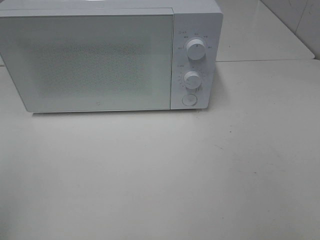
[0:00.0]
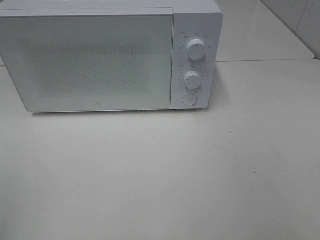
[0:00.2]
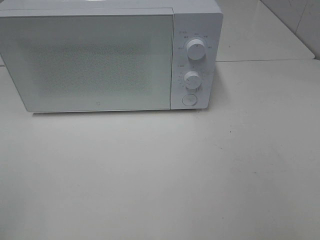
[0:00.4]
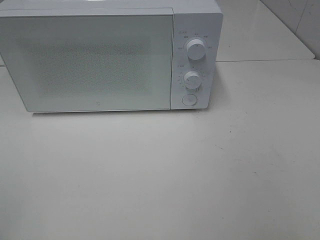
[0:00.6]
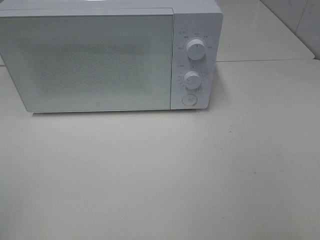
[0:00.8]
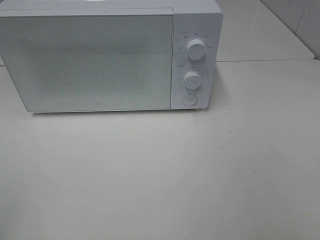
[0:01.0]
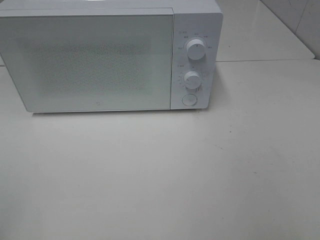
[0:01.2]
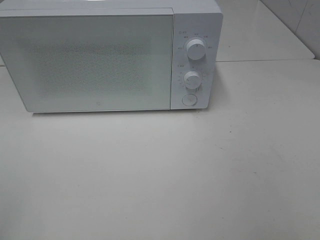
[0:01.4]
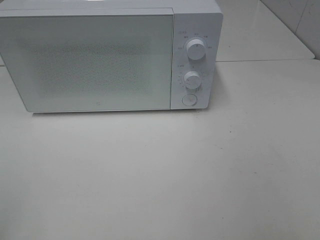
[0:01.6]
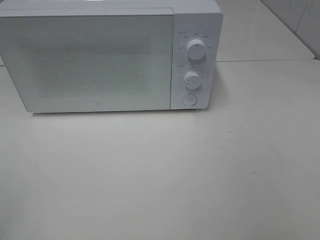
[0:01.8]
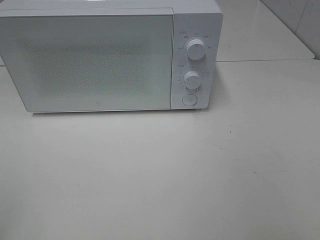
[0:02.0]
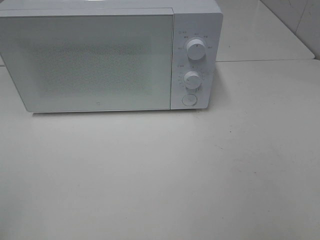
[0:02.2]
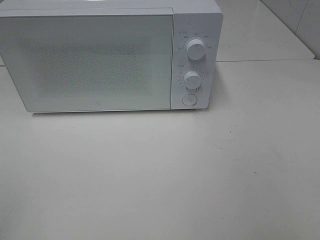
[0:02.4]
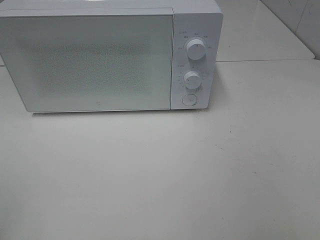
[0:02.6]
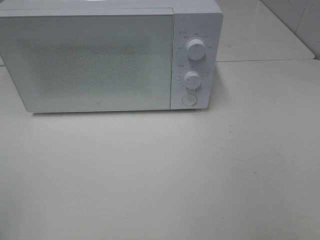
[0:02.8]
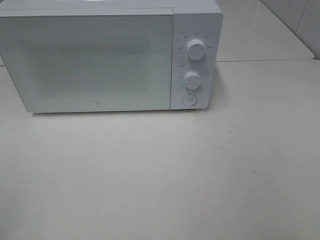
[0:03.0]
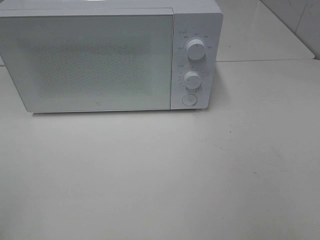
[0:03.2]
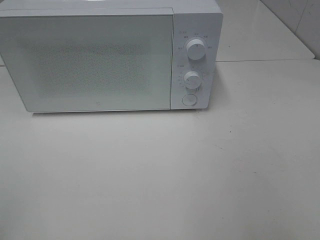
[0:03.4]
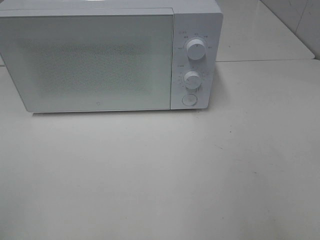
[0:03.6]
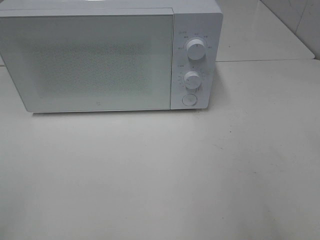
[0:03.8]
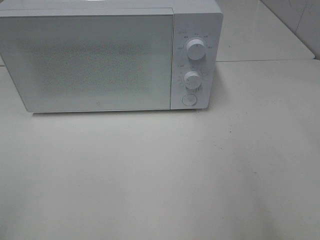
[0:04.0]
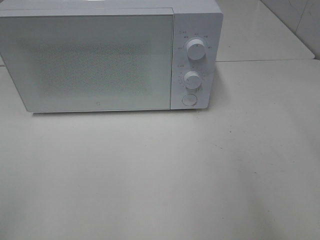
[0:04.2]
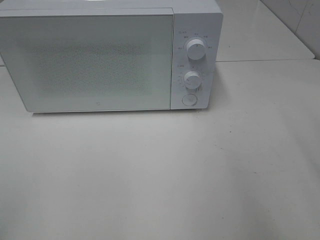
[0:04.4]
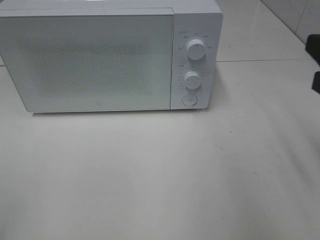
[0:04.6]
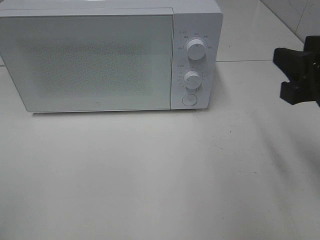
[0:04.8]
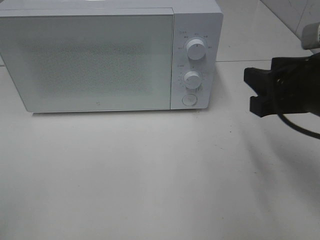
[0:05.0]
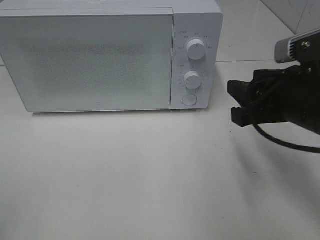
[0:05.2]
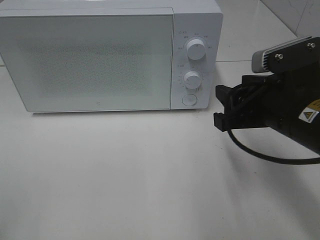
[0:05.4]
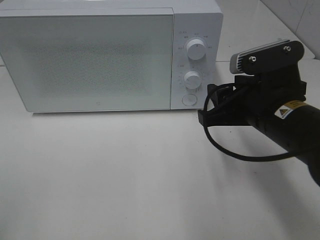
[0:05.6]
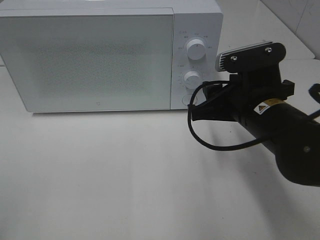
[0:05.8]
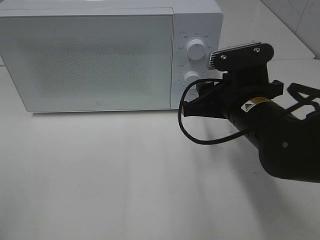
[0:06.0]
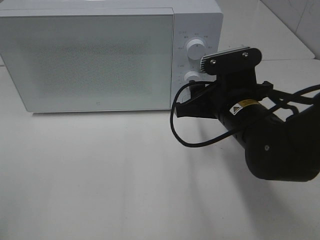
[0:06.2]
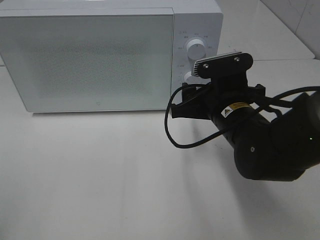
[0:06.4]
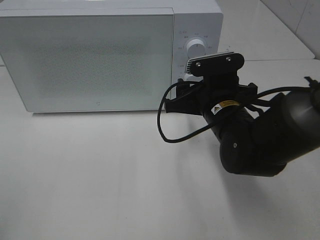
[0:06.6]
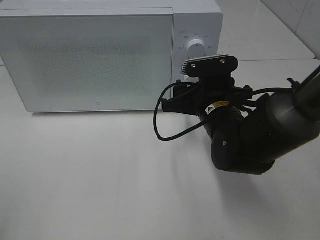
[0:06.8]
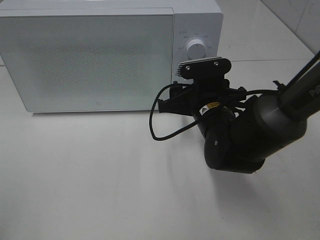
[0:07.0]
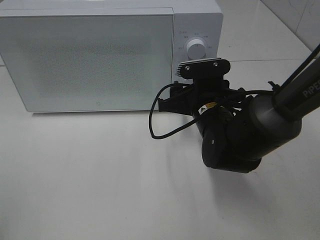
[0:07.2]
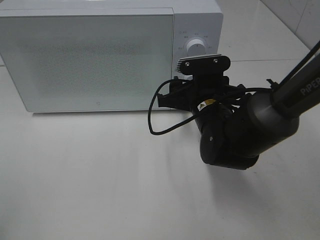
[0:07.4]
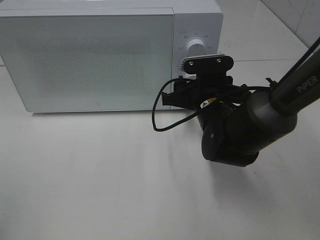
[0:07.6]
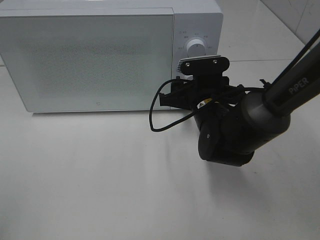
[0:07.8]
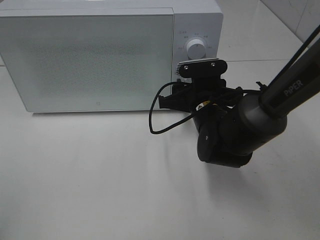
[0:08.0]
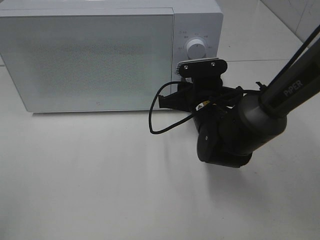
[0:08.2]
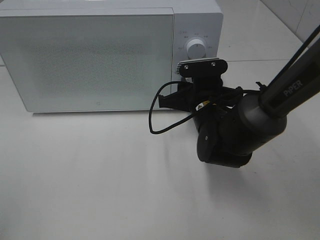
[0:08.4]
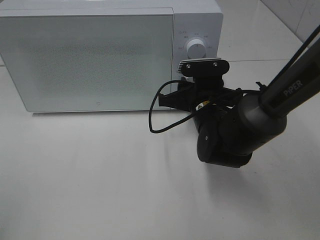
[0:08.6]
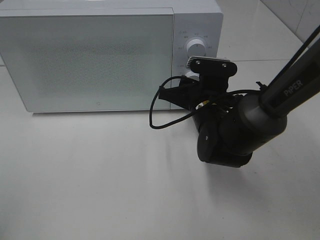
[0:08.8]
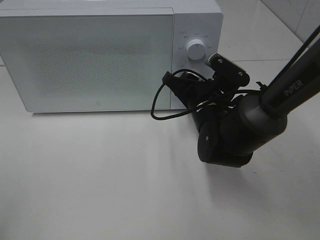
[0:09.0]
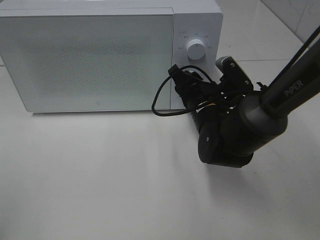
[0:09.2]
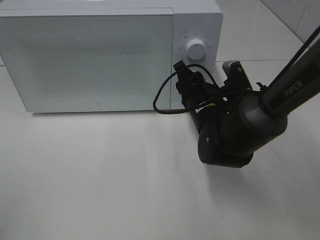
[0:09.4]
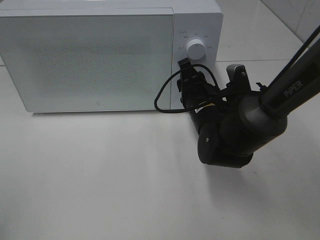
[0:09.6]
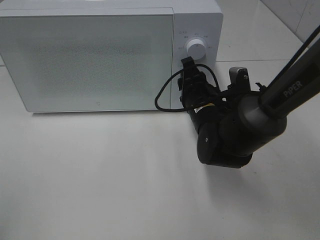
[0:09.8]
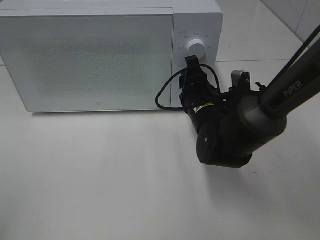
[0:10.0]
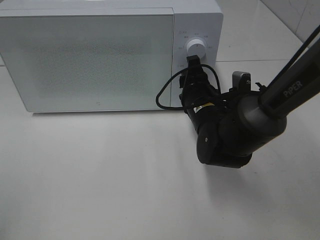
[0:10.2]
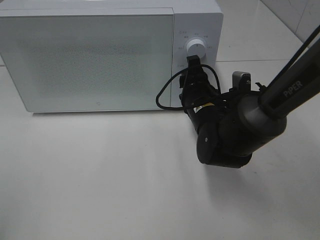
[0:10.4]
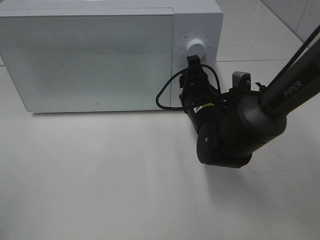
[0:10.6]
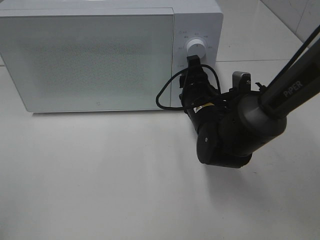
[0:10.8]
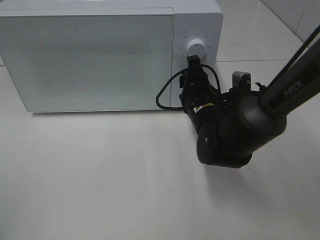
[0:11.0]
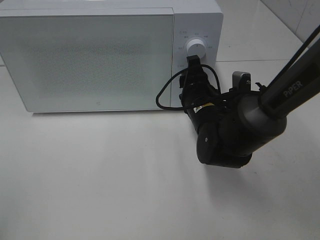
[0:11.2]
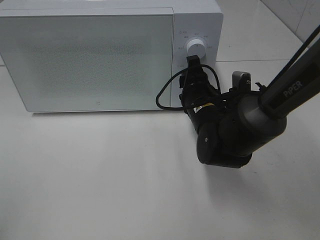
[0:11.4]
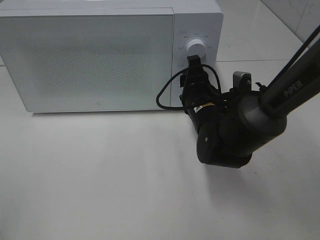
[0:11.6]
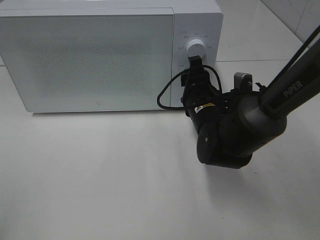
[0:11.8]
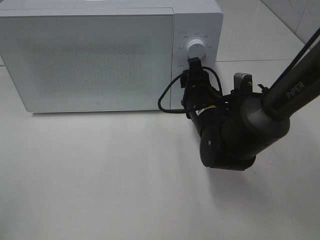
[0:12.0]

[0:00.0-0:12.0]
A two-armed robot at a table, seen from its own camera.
Task of the whole recording: Heat Sandwich.
0:01.6 to 0:03.0: Neither gripper changes place.
0:04.4 to 0:06.0: The right gripper goes approximately 20 cm to the left, downward and forward.
0:06.0 to 0:07.6: The right gripper shifts some 10 cm forward and downward.
0:07.6 to 0:09.0: The right gripper closes its fingers.
0:10.4 to 0:12.0: Both grippers stay put.

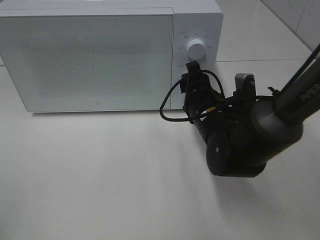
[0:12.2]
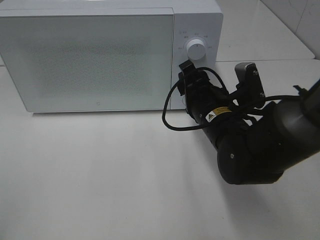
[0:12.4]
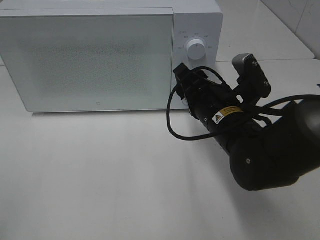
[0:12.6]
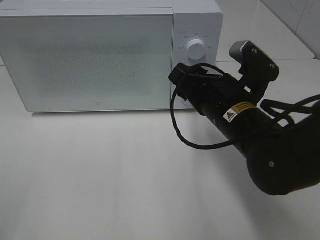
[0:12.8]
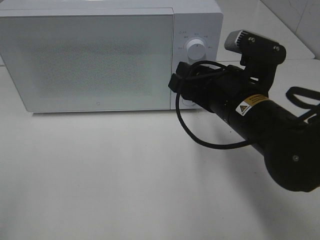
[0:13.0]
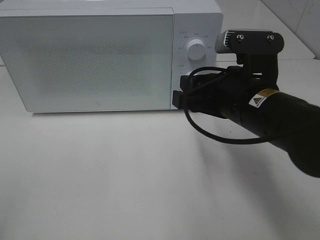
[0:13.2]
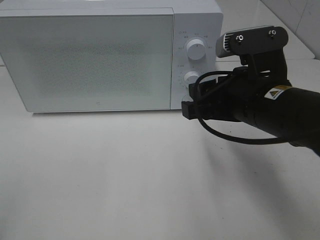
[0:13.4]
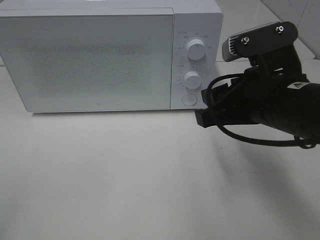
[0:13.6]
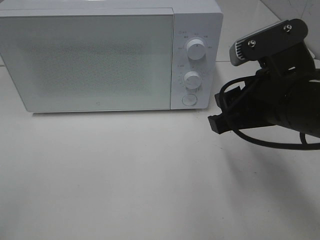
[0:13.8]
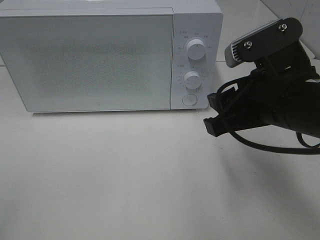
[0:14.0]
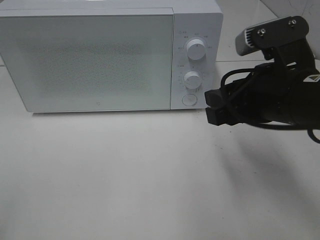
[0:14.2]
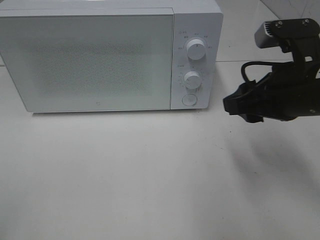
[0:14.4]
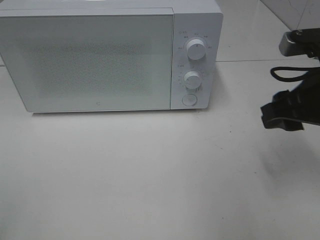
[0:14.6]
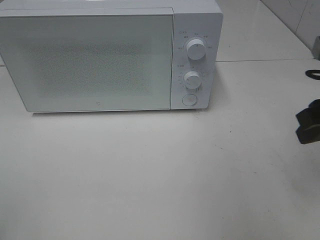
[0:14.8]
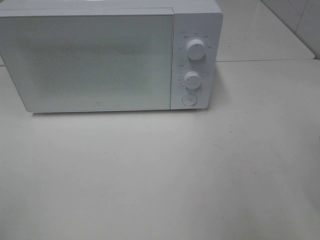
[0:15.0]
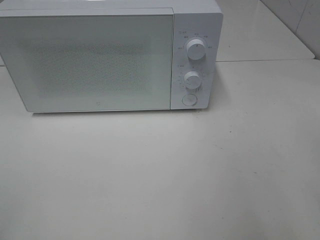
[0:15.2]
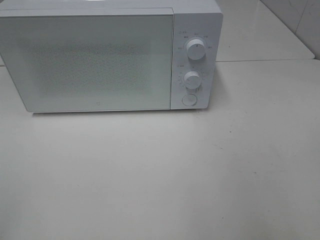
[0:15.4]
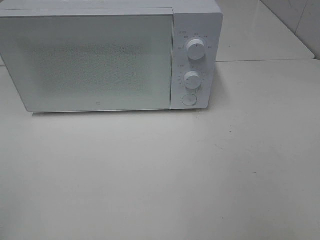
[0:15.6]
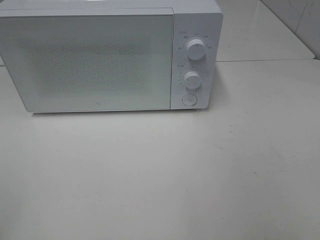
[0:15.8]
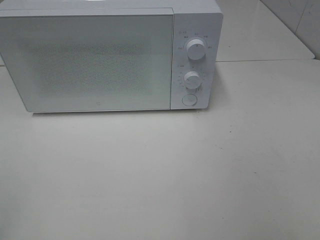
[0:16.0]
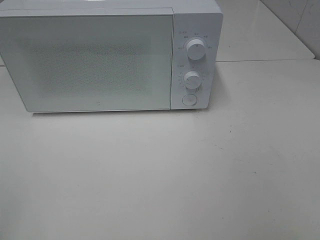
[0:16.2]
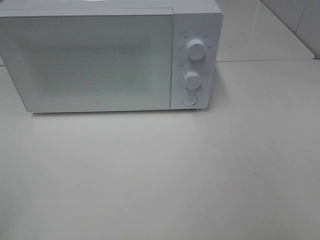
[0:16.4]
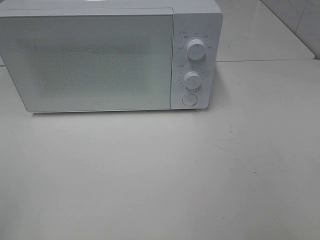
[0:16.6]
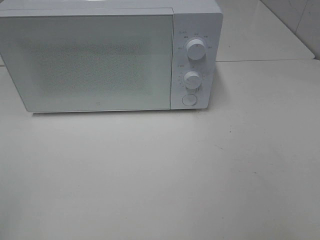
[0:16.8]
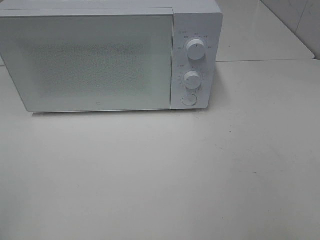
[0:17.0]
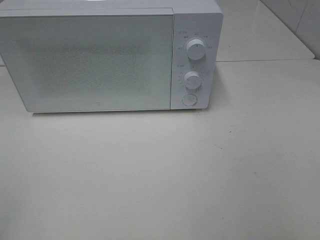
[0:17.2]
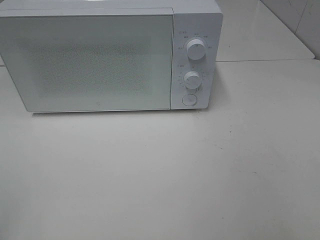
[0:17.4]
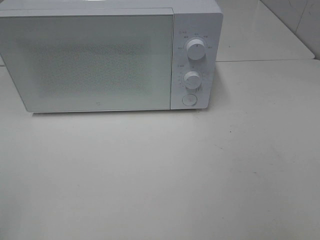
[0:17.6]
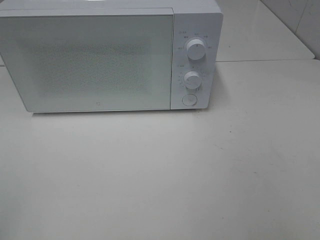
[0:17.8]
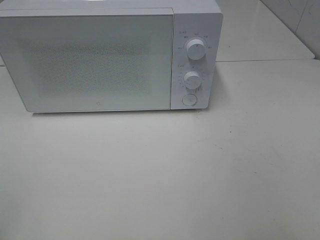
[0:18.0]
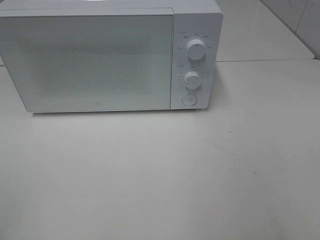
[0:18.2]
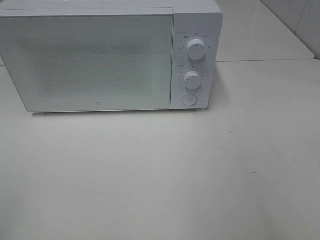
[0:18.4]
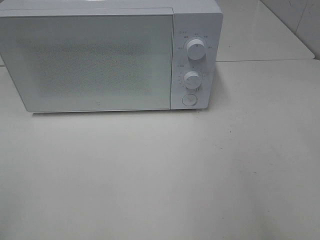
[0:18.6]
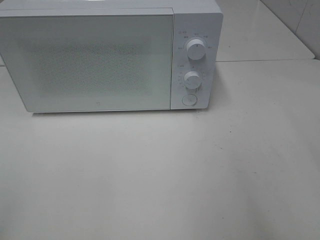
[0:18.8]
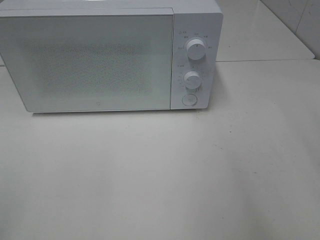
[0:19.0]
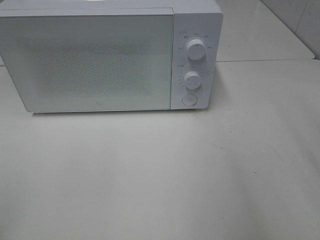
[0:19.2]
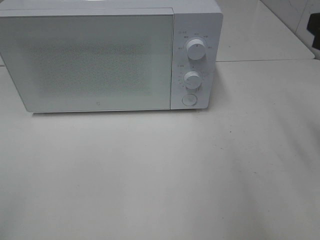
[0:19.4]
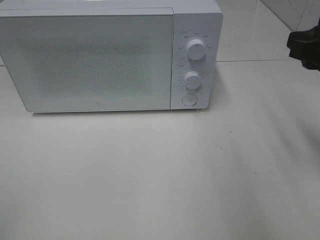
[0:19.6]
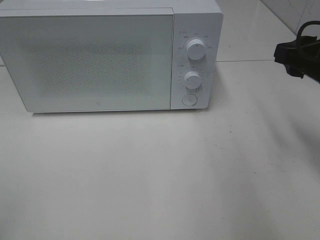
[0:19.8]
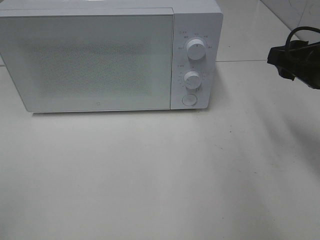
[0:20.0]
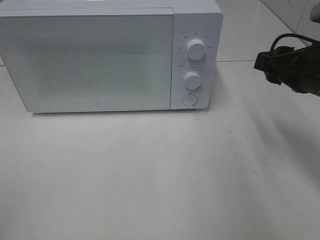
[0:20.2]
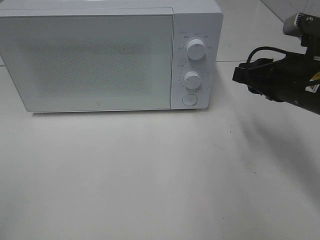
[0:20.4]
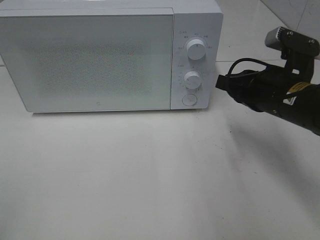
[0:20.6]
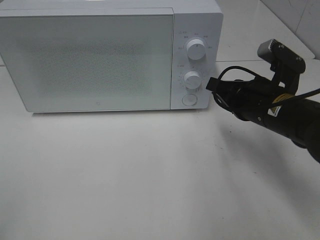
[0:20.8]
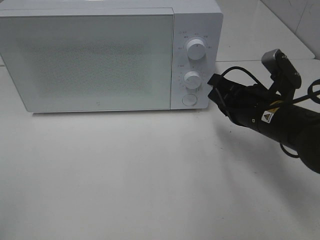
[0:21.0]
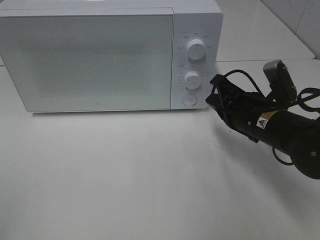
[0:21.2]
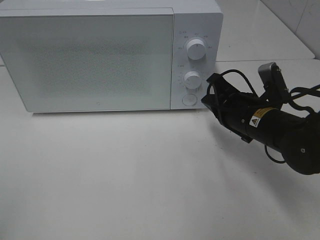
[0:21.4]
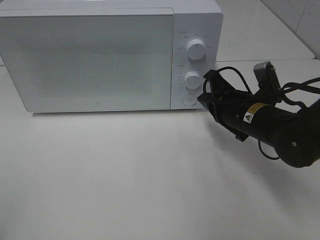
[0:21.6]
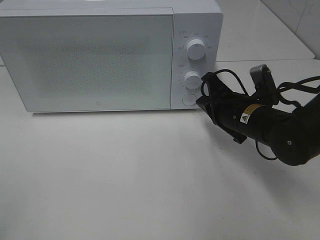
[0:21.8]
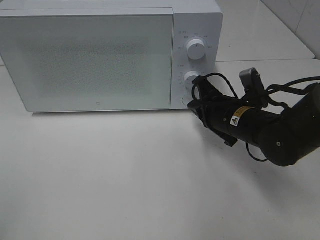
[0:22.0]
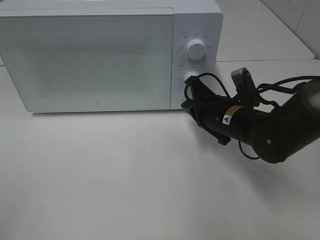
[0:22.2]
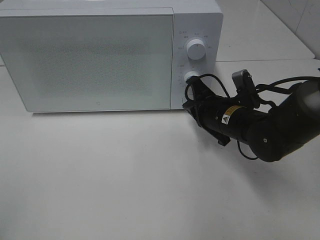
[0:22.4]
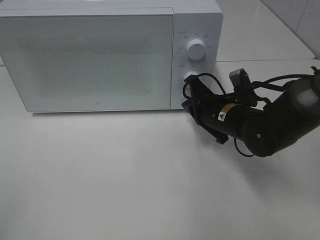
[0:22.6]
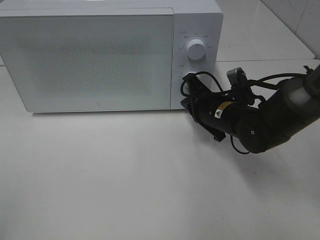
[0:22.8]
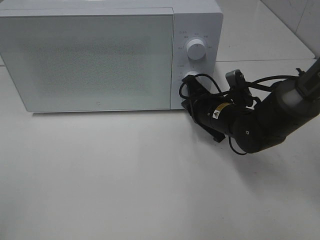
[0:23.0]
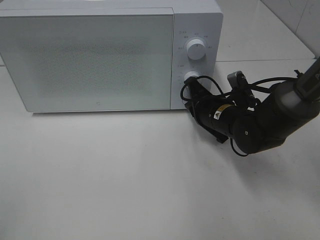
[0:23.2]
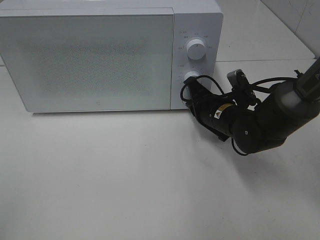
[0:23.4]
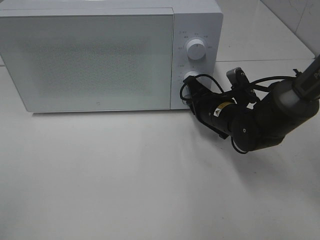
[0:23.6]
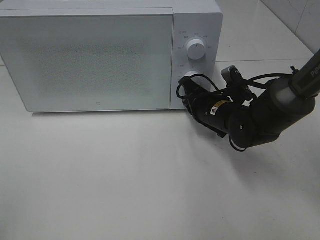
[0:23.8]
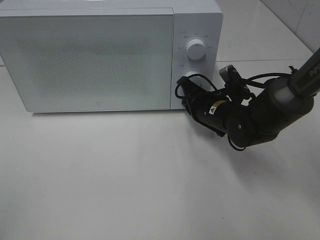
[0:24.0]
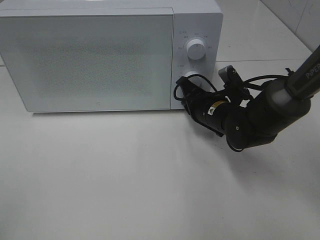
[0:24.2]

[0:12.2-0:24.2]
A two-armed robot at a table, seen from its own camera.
Task of the whole recording: Heat Sandwich.
0:12.2 to 0:13.8: The right gripper heads upward, backward and to the right, covering about 15 cm.
0:13.8 to 0:15.2: The right gripper is displaced to the right, backward and upward by some 15 cm.
0:18.2 to 0:19.8: The right gripper goes about 20 cm forward.
0:19.8 to 0:21.2: The right gripper travels downward and to the left by some 15 cm, and closes.
0:21.2 to 0:22.6: The right gripper changes place by some 5 cm.
0:22.6 to 0:24.2: The grippers stay close to where they were, moving slightly.
